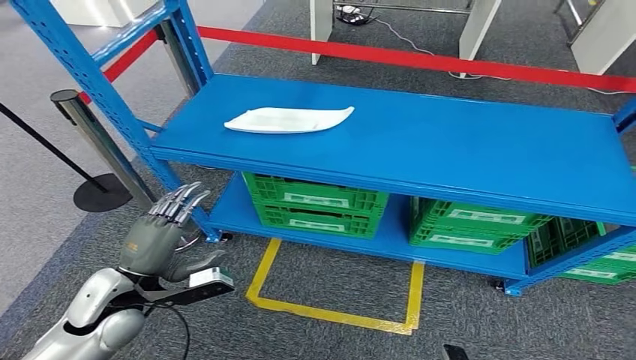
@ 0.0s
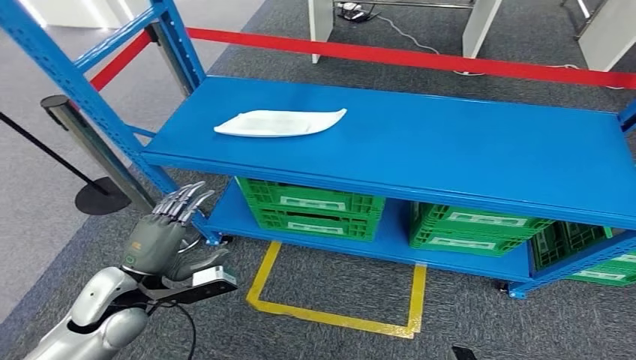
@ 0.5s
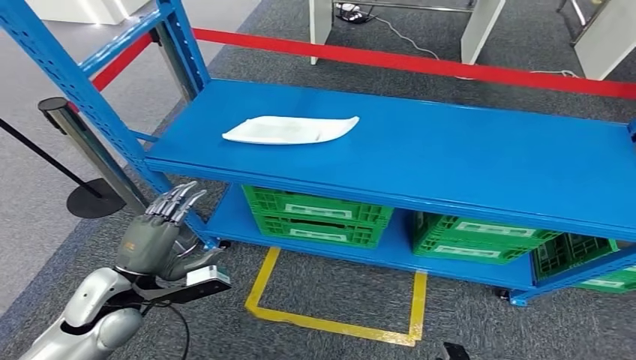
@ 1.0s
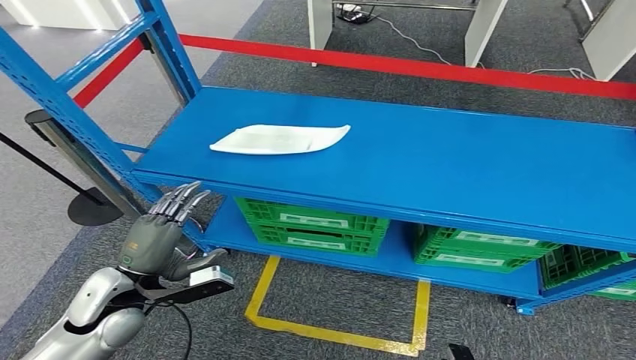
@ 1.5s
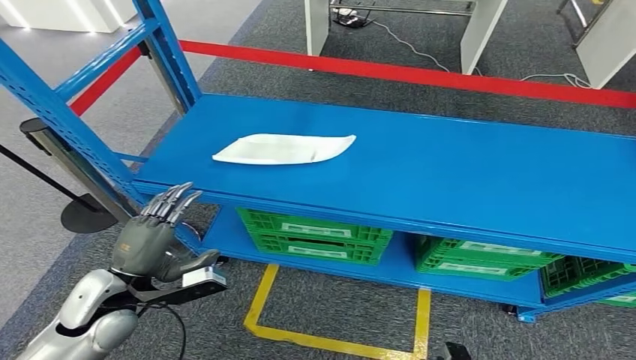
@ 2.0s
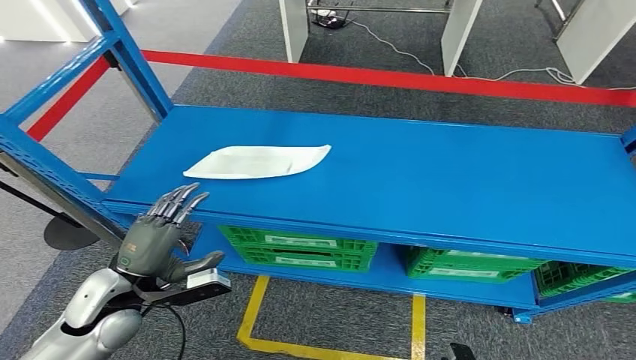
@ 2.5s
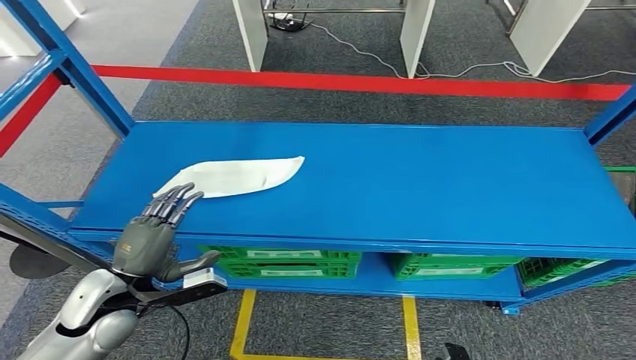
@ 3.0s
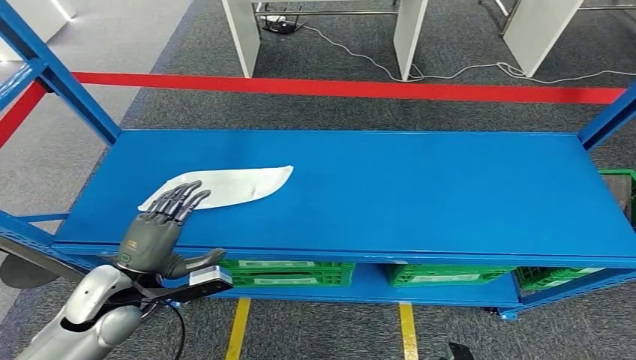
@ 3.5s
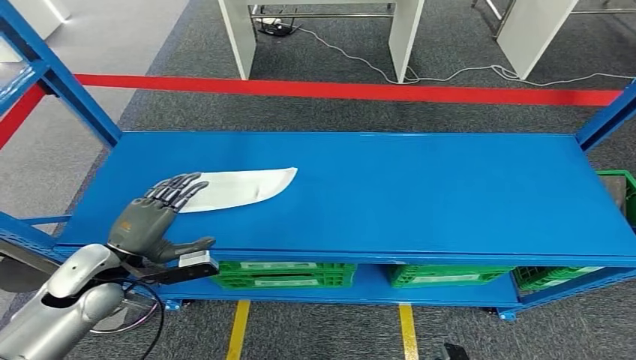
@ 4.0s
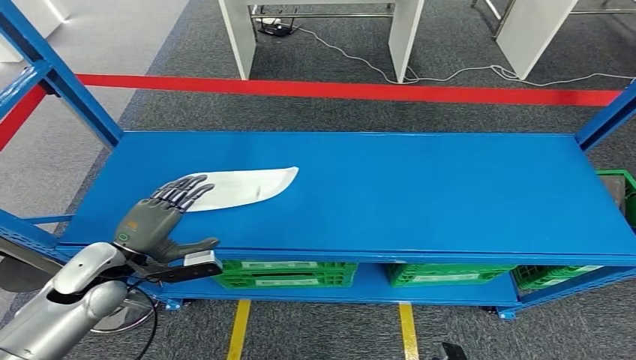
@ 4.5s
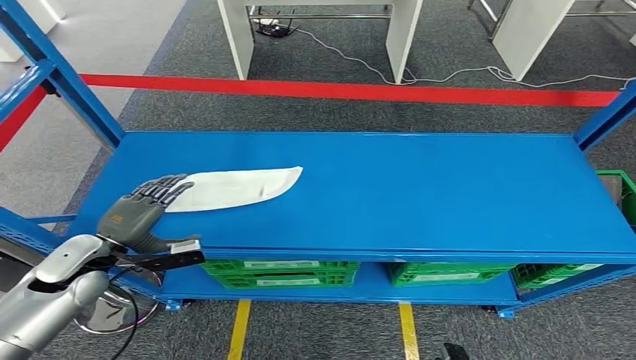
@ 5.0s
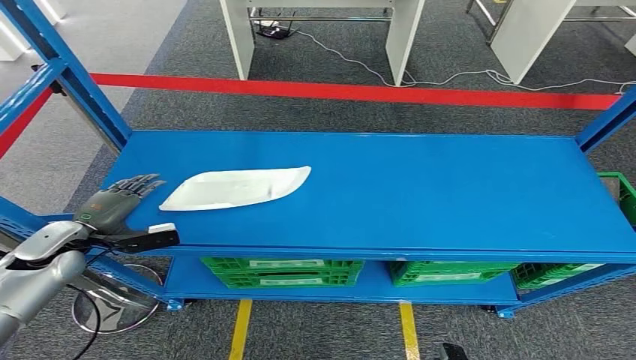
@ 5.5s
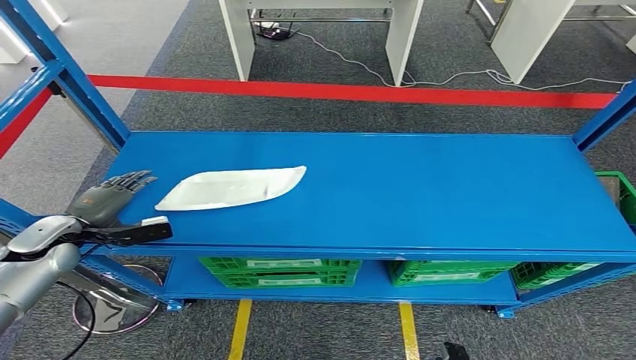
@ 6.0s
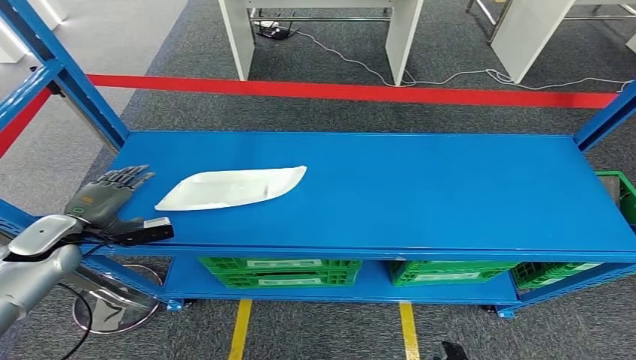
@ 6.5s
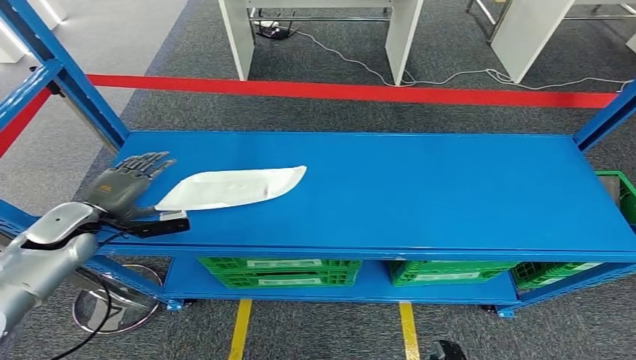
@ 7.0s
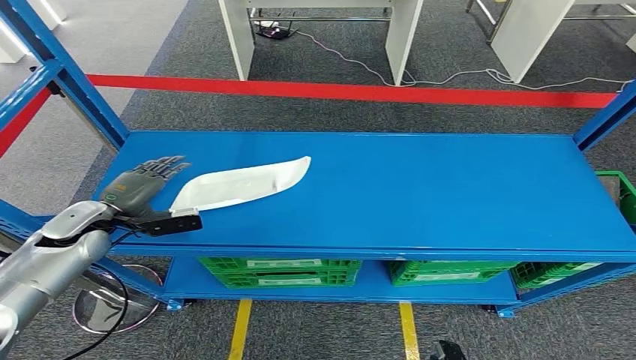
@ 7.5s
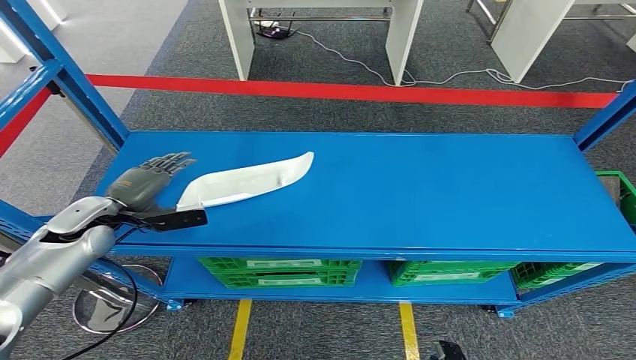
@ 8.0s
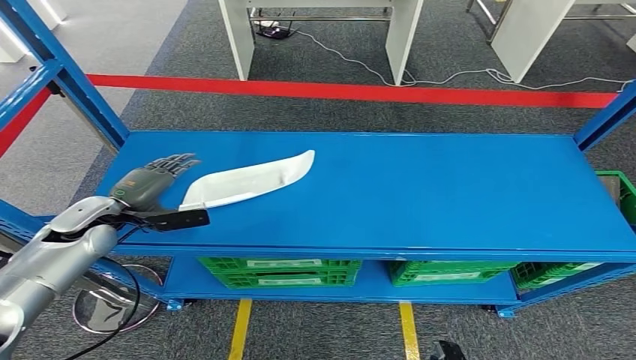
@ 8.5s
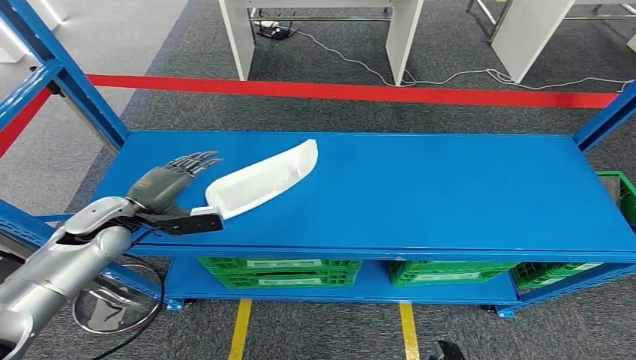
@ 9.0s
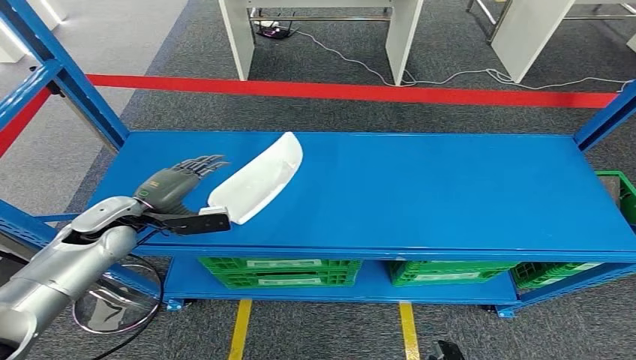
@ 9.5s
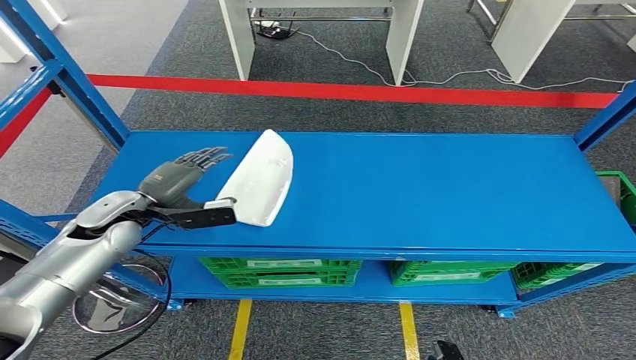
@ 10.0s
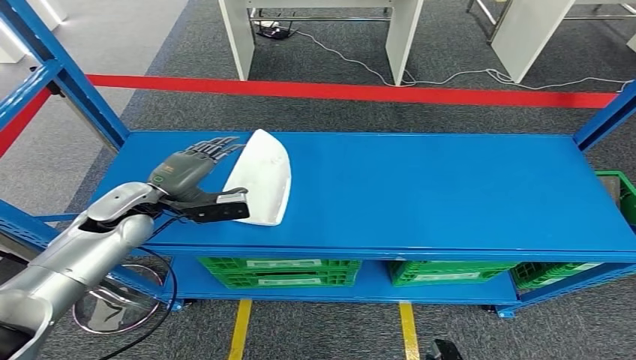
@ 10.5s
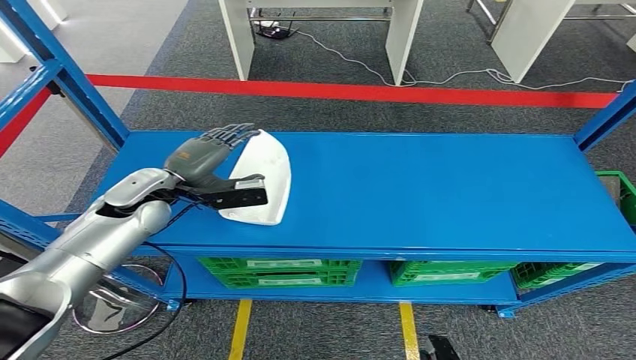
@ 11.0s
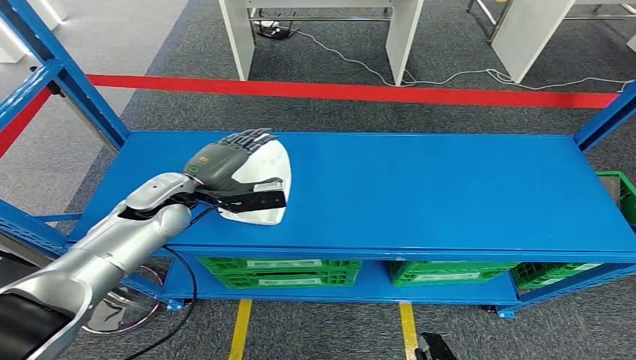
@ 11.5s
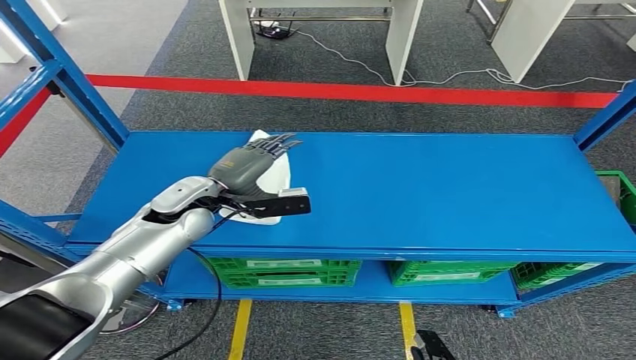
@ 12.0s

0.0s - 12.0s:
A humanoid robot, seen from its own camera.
4.0s - 6.0s: The left hand heads to the left and forward, covering roughly 15 cm.
6.0s - 8.0s: The left hand moves to the right, approximately 5 cm.
8.0s - 10.0s: The left hand shifts approximately 5 cm to the right.
10.0s - 12.0s: The left hand moves to the right, about 10 cm.

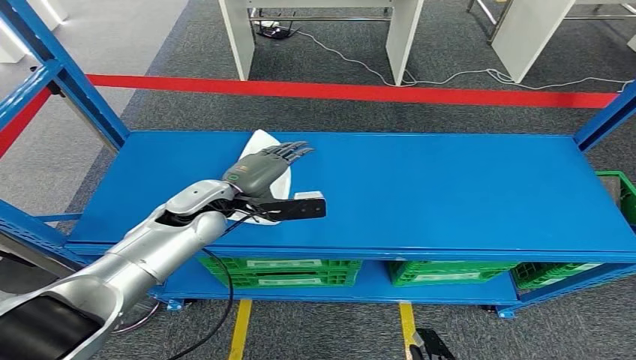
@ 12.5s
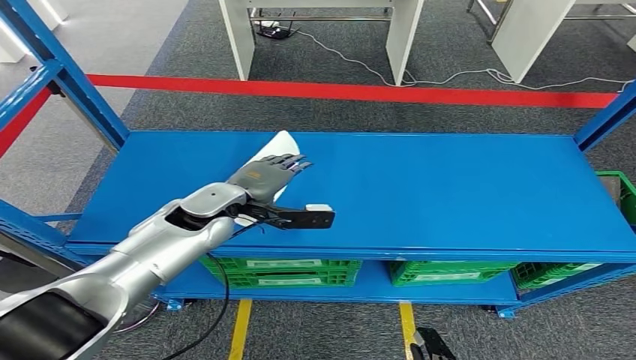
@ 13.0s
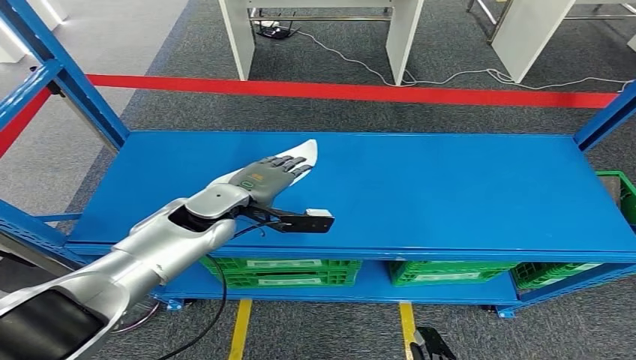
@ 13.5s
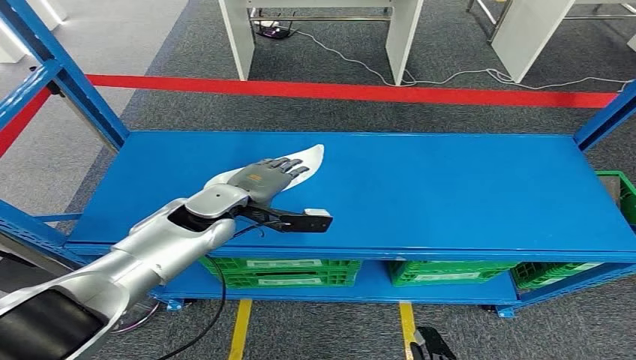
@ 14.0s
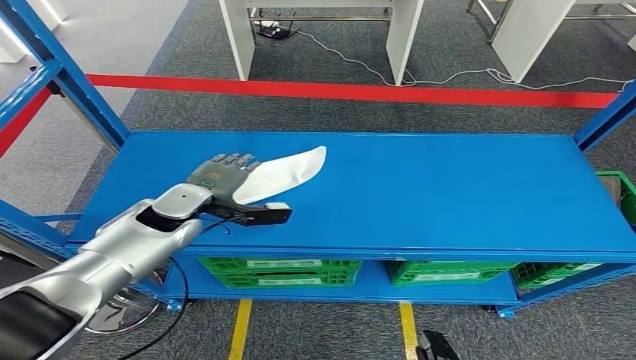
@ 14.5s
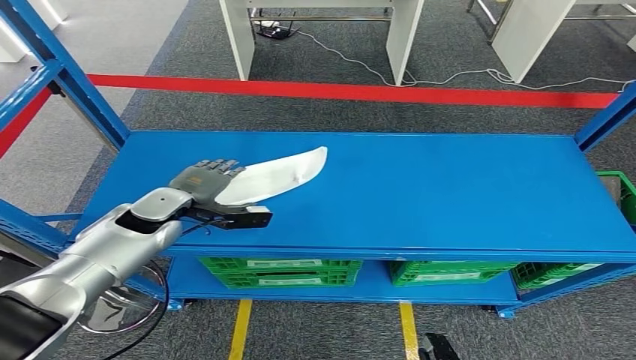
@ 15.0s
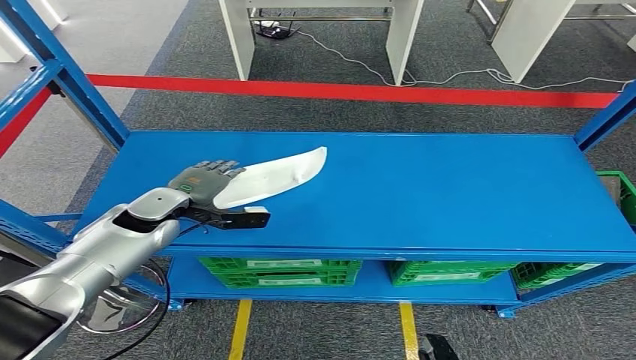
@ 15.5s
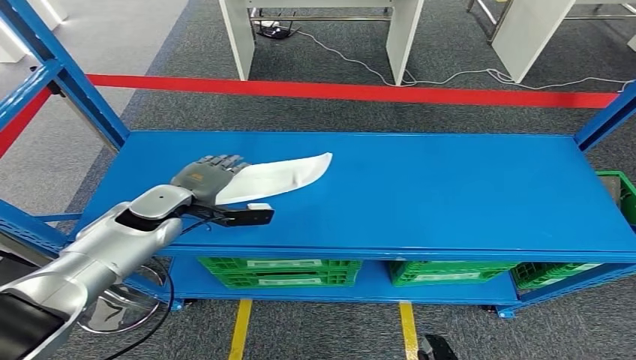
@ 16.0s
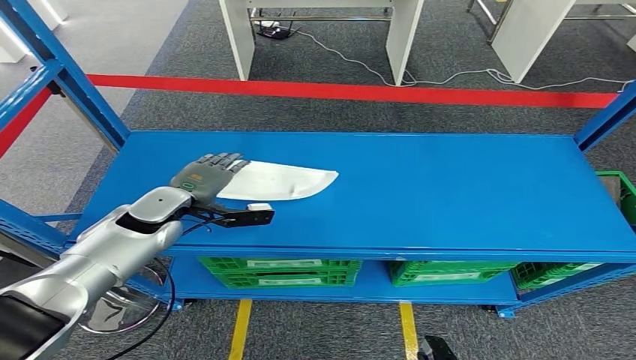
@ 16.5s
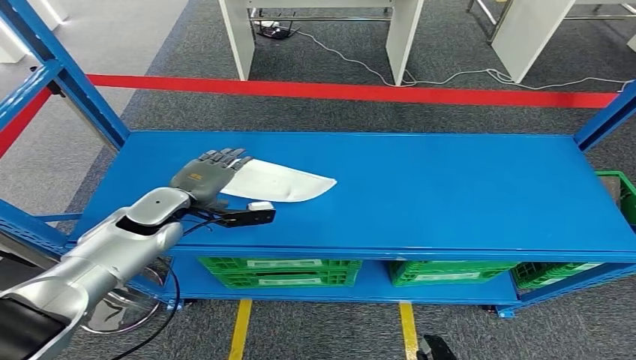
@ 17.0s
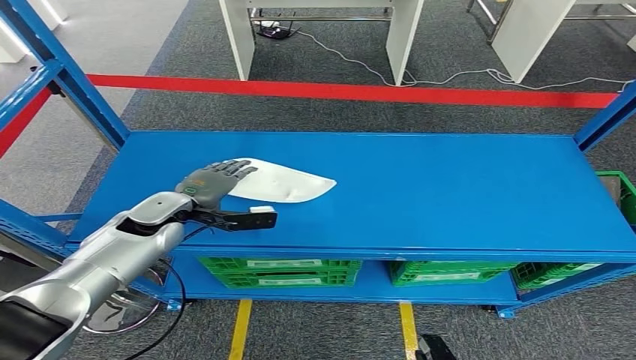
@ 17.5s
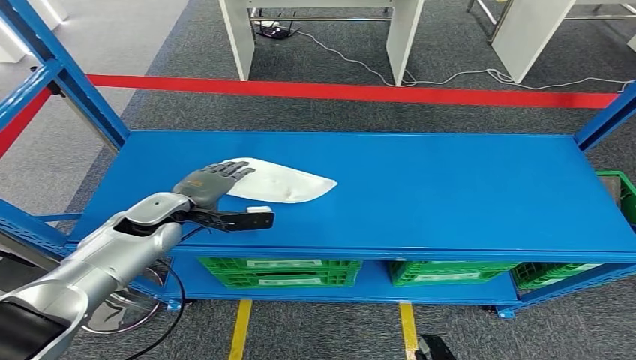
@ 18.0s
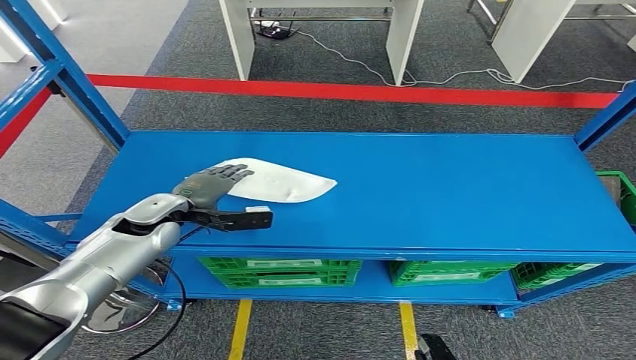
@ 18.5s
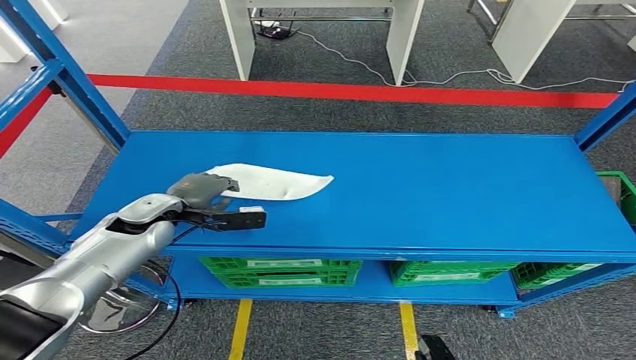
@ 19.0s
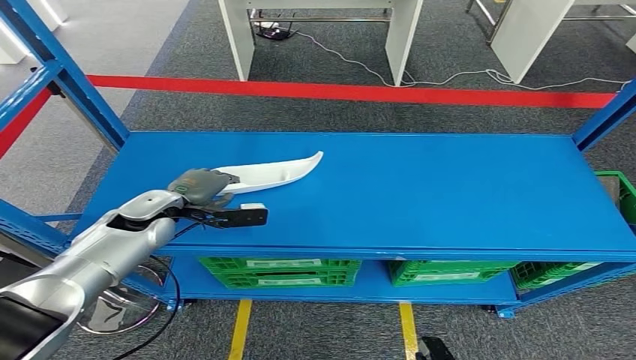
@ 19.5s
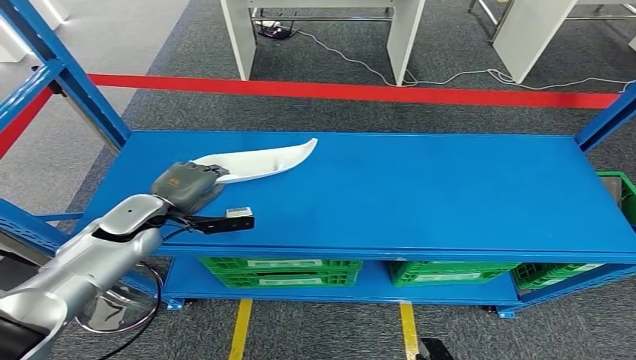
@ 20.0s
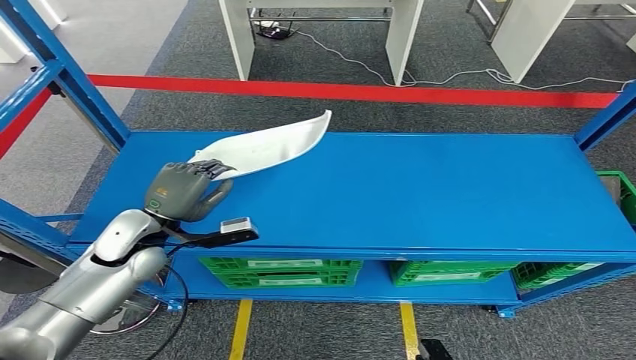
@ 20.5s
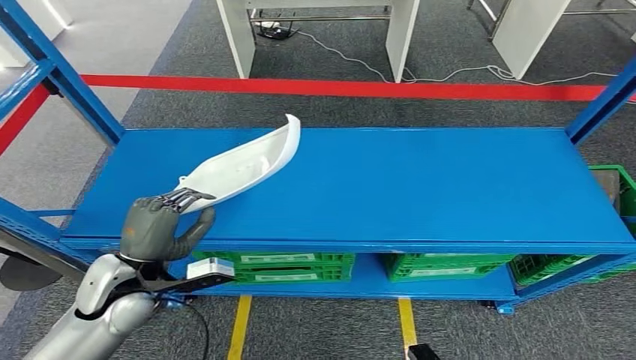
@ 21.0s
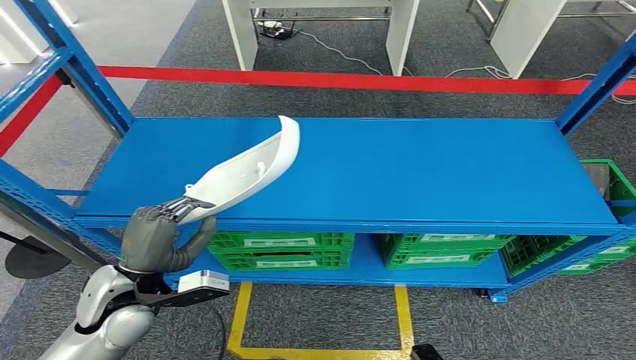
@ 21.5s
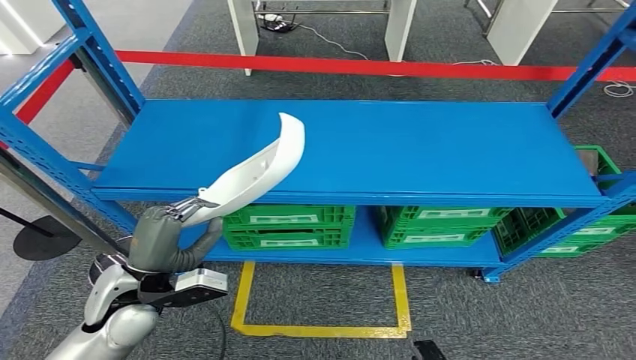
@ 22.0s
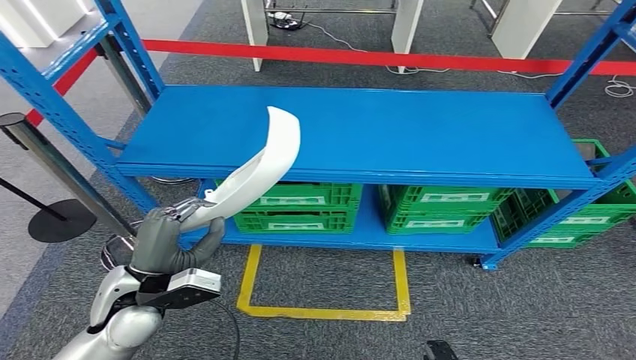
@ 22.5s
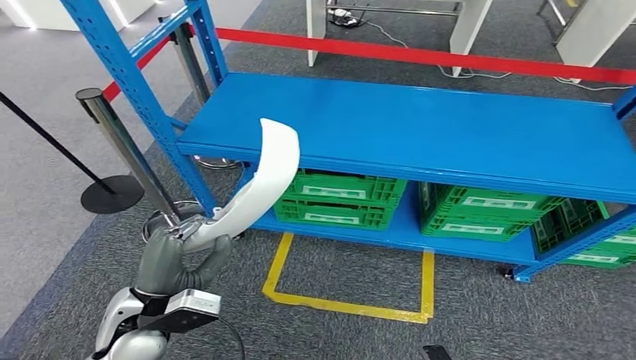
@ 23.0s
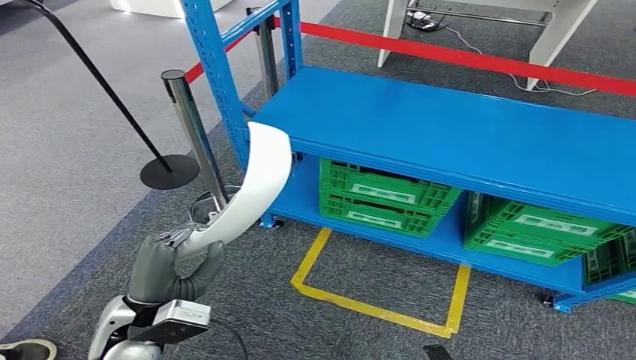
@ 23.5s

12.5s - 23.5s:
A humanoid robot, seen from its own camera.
14.5s - 18.0s: The hands move only a little.
18.0s - 20.0s: The hands stay close to where they were, moving slightly.
